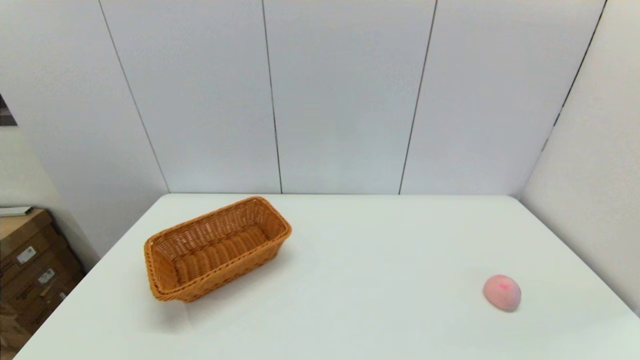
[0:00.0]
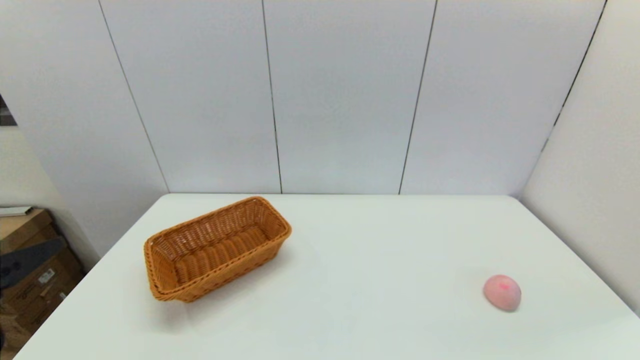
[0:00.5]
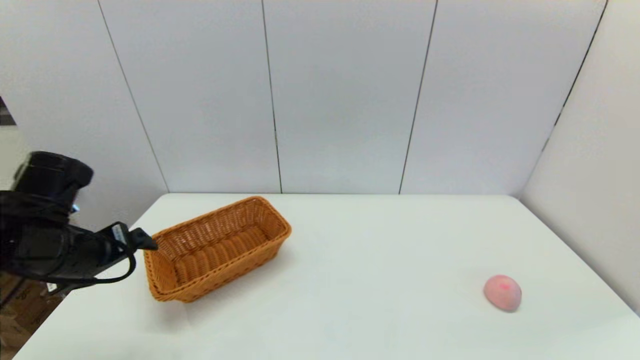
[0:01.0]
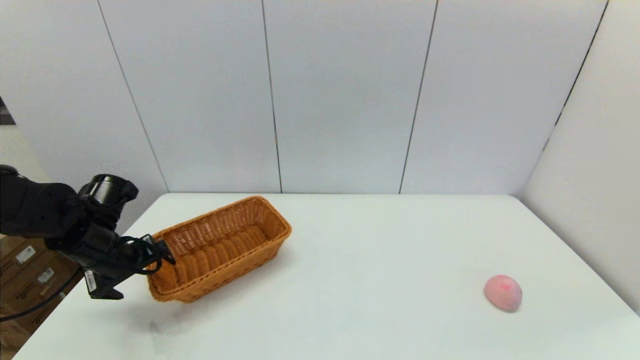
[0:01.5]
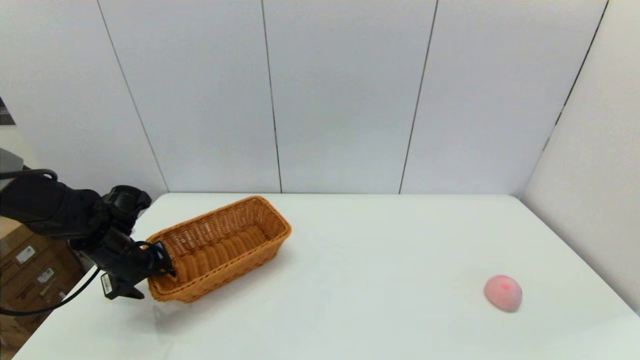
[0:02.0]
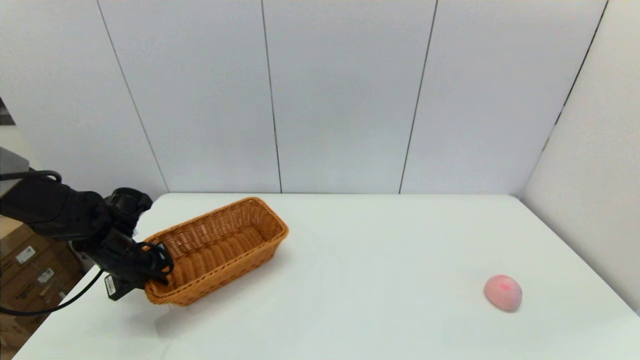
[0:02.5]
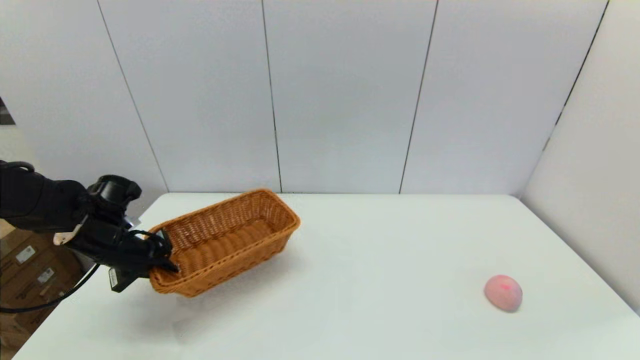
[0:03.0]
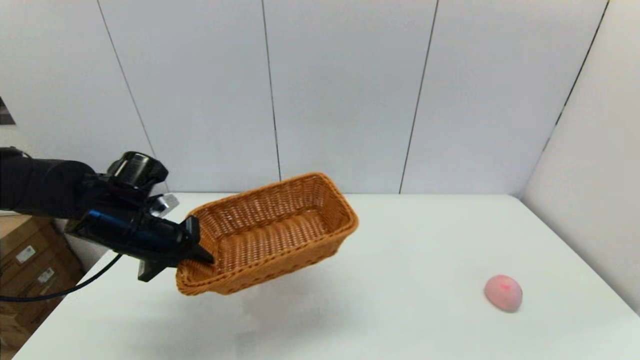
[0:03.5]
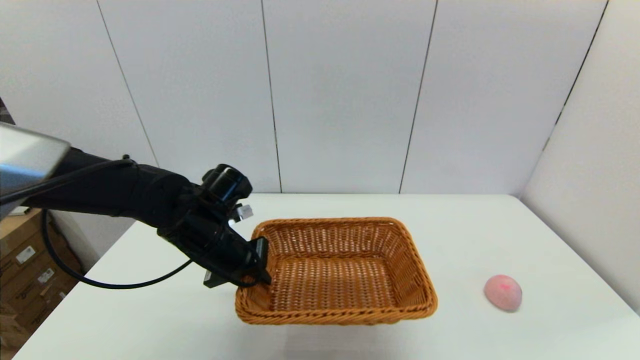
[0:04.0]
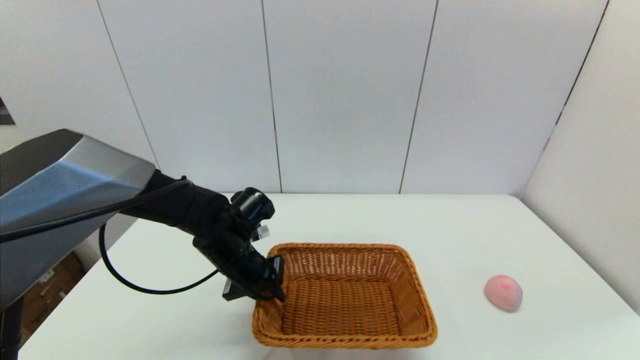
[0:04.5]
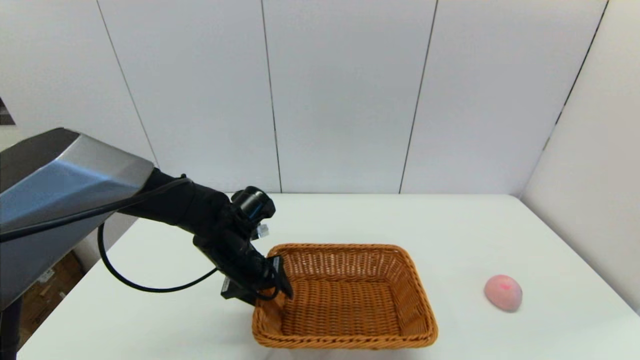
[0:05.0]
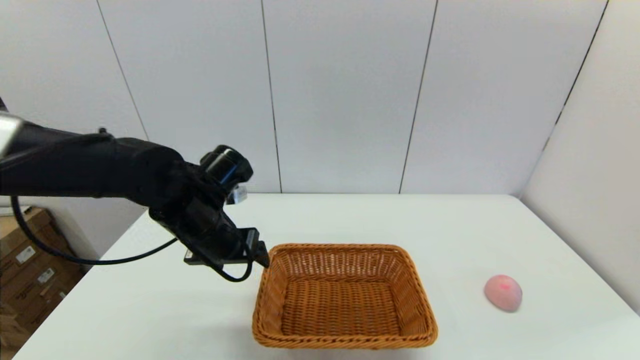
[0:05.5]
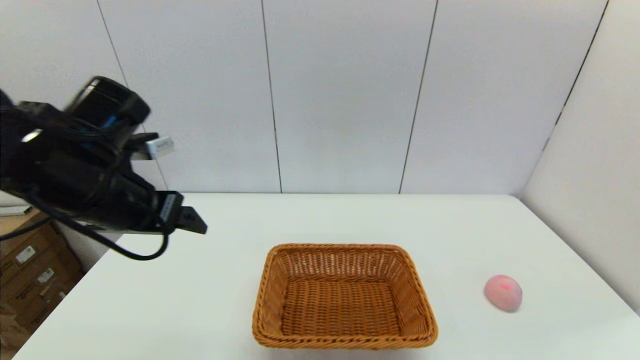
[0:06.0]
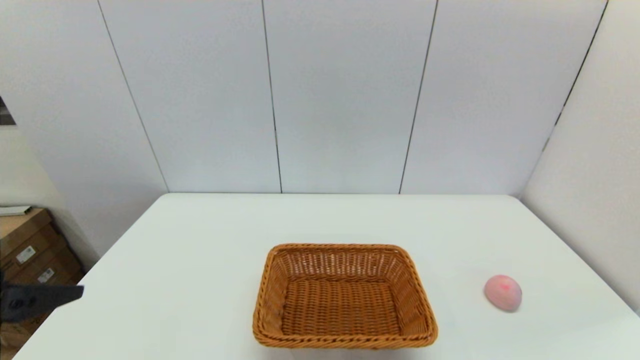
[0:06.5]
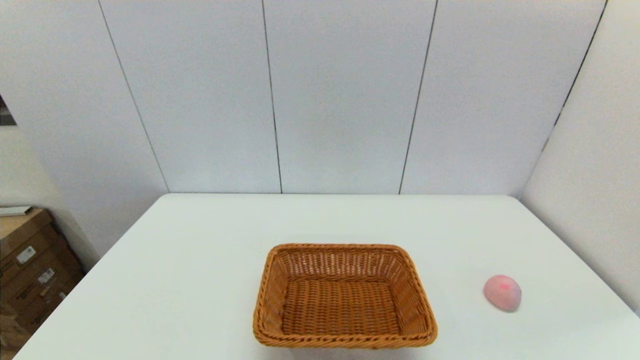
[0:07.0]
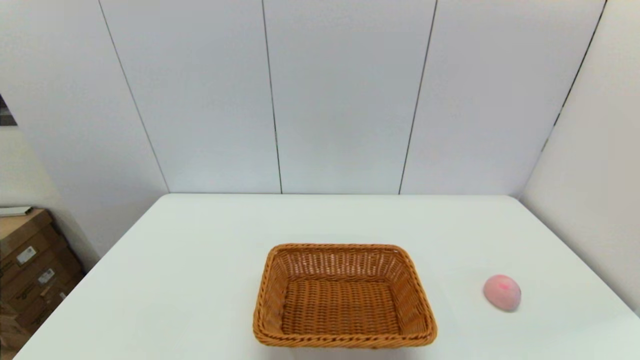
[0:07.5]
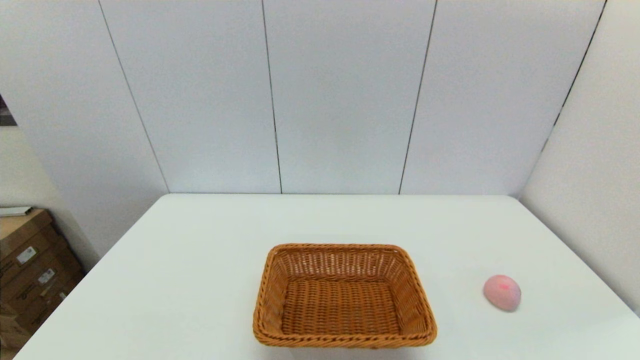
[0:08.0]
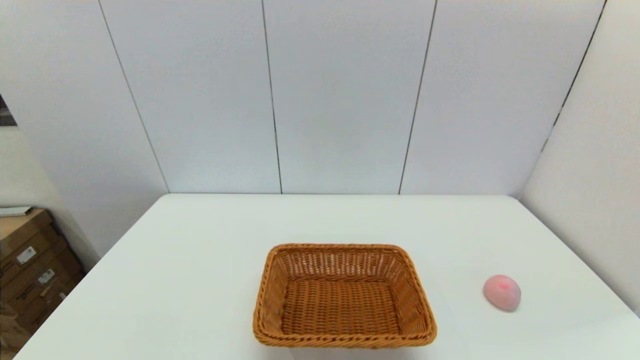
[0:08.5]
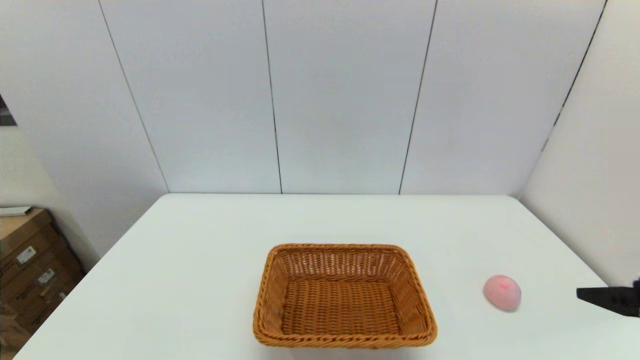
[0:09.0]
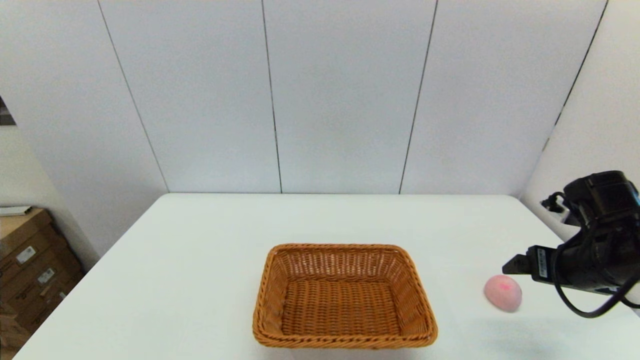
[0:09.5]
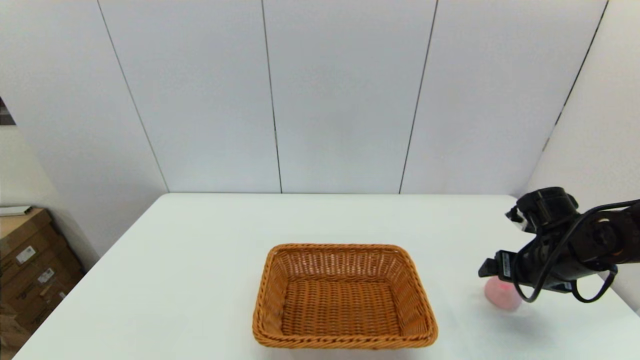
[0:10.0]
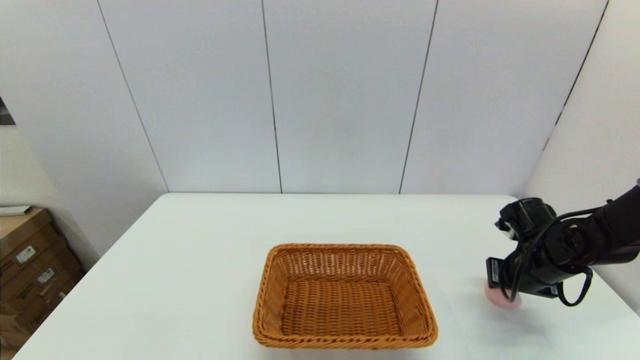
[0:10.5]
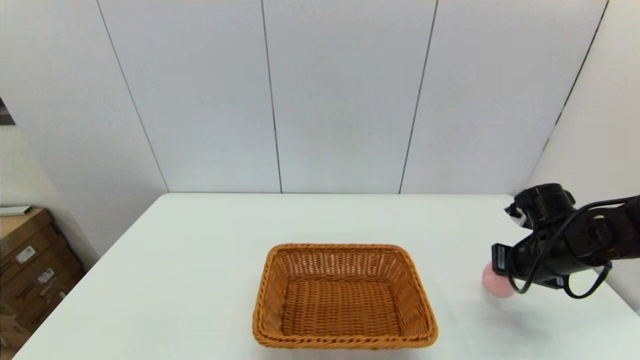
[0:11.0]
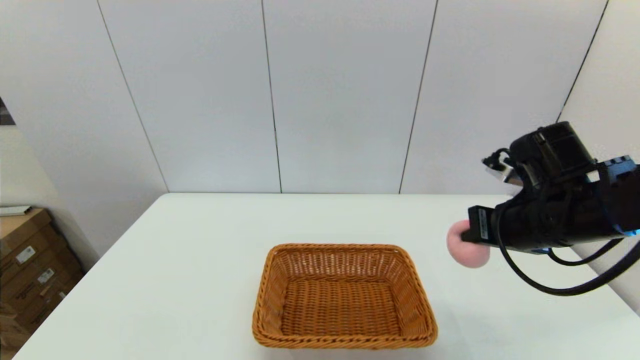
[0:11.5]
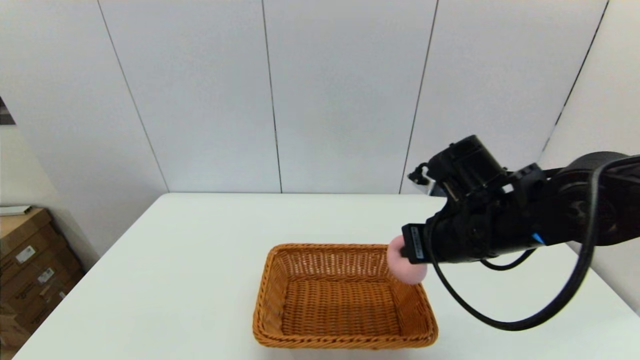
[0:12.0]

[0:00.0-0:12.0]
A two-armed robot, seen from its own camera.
Step, 0:00.0 to 0:02.0: Grasp the light basket with the left gripper.
Step, 0:02.5 to 0:04.5: Place the light basket on the middle of the table with the left gripper.
Step, 0:05.5 to 0:10.5: Grasp the peach with the right gripper.
0:00.0 to 0:02.0: The left gripper shifts about 35 cm forward, and closes up.
0:02.0 to 0:04.0: The left gripper moves to the right, about 15 cm, and closes up.
0:04.0 to 0:06.0: The left gripper heads upward, to the left and backward, covering approximately 15 cm, and opens.
0:06.0 to 0:08.0: The left gripper heads backward and downward, covering roughly 30 cm.
0:08.0 to 0:10.0: The right gripper shifts approximately 35 cm forward.
0:10.0 to 0:12.0: The right gripper is displaced to the left and upward by about 20 cm, and closes.

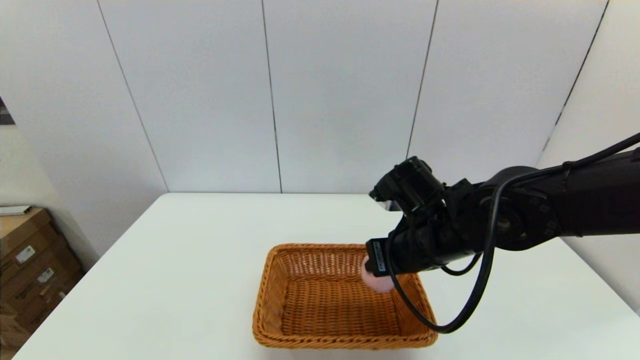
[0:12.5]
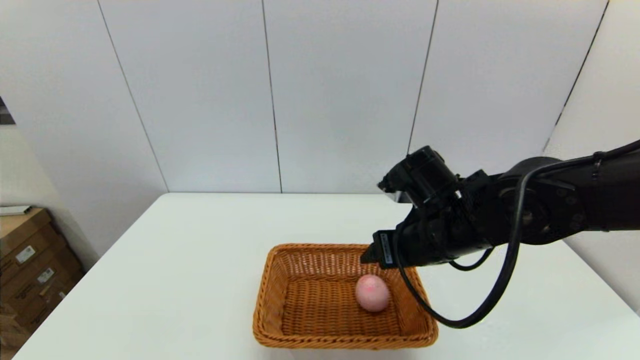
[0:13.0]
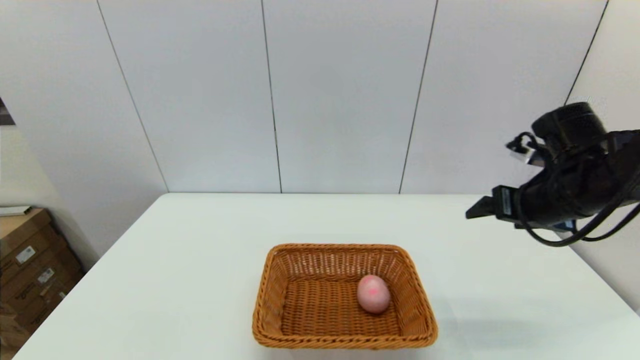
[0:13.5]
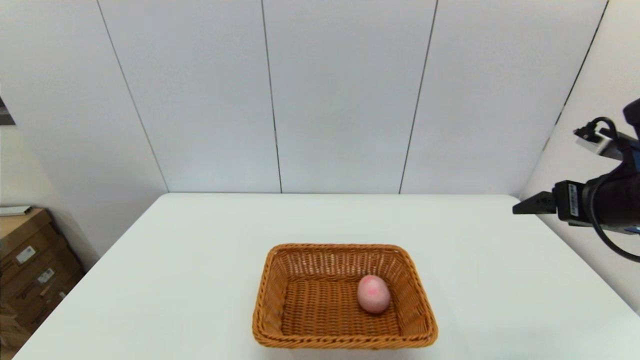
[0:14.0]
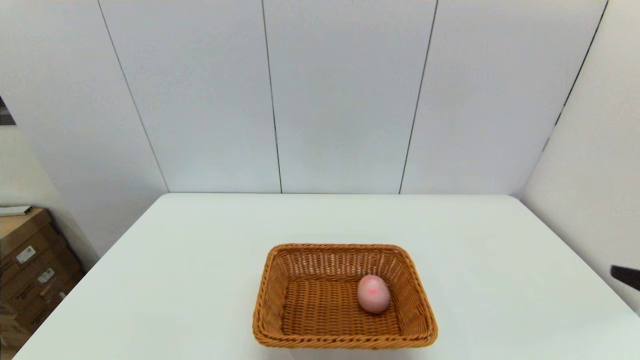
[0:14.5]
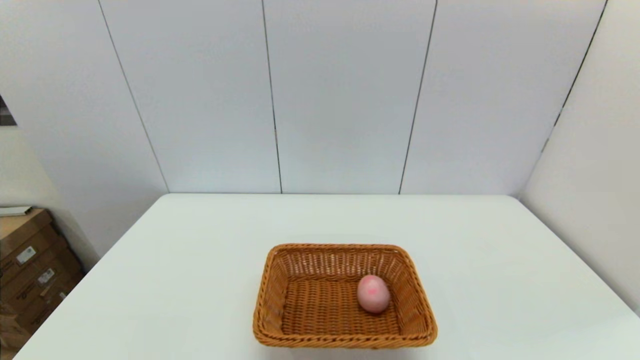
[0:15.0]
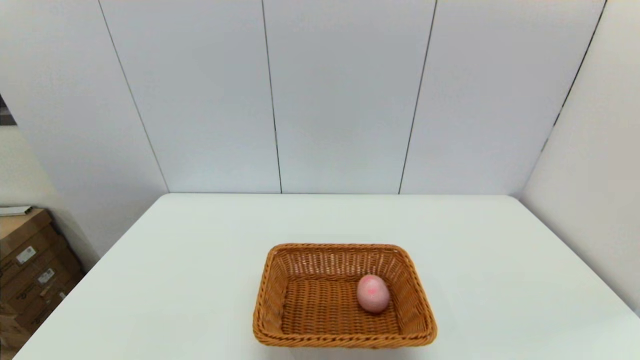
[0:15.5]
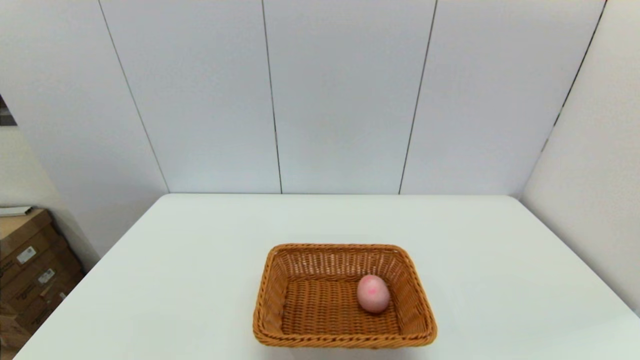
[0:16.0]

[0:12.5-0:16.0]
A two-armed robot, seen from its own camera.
0:12.5 to 0:14.5: The right gripper is displaced backward and to the right by roughly 30 cm, and opens.
